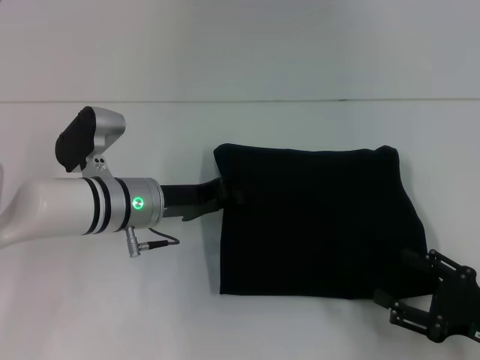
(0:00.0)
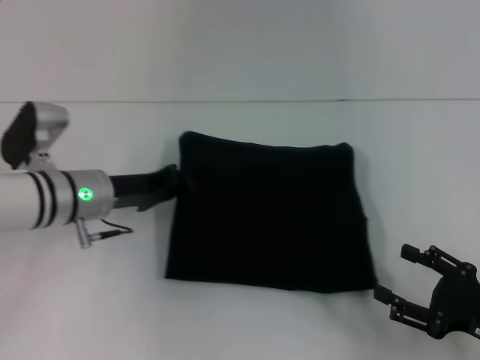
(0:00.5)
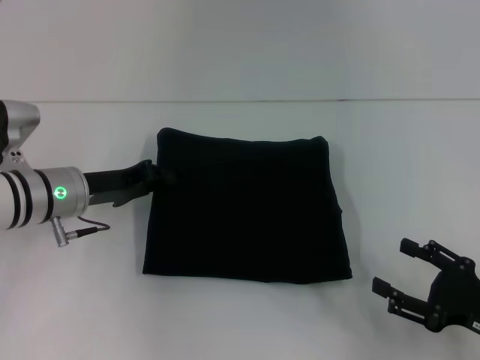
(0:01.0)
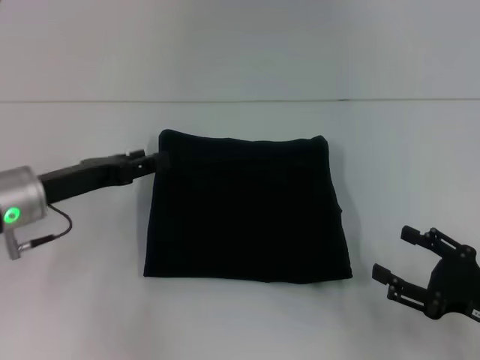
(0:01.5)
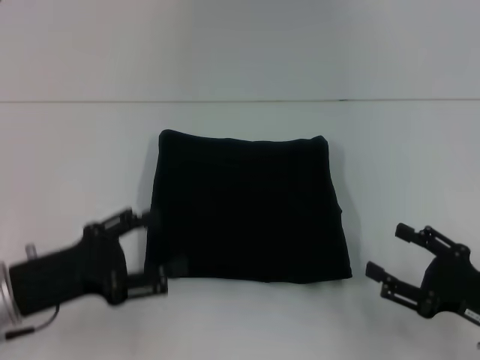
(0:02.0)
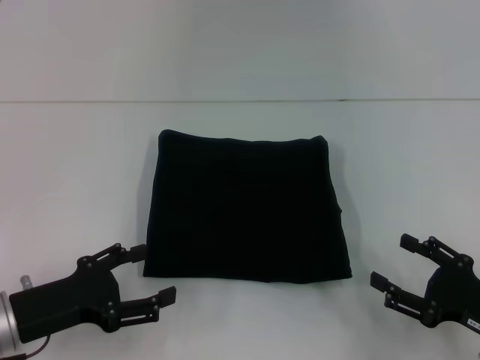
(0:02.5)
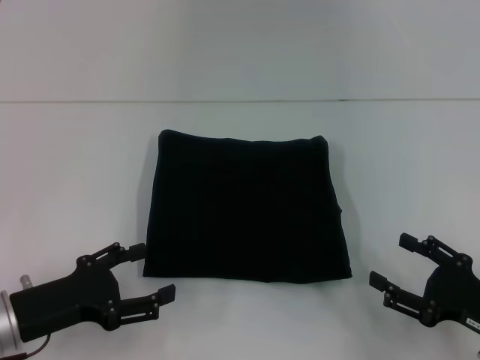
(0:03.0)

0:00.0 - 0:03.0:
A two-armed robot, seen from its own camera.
0:00.0 - 0:01.5: The left gripper shifts about 10 cm to the left, and opens.
0:01.5 - 0:03.0: The left gripper shifts approximately 10 cm backward, and opens up.

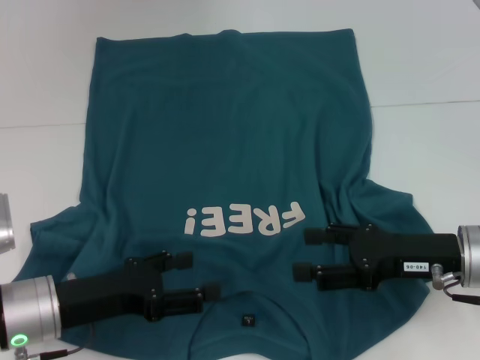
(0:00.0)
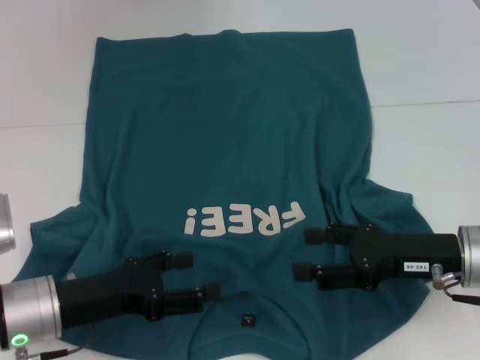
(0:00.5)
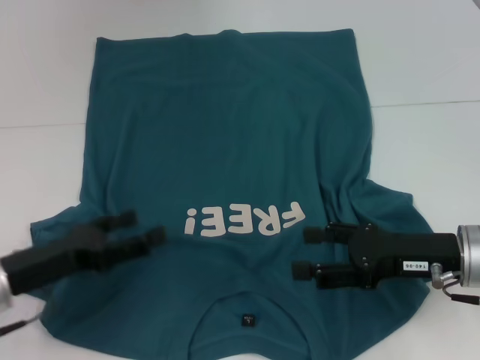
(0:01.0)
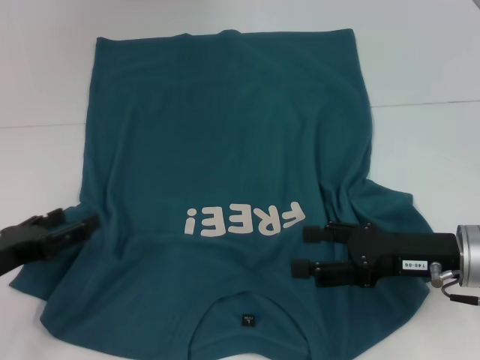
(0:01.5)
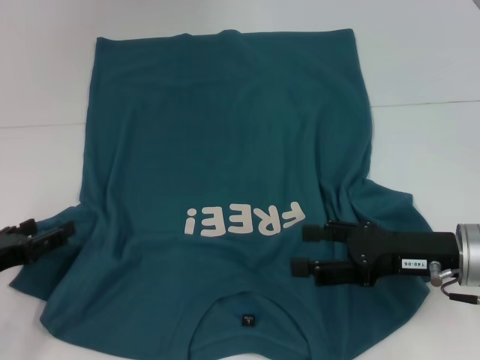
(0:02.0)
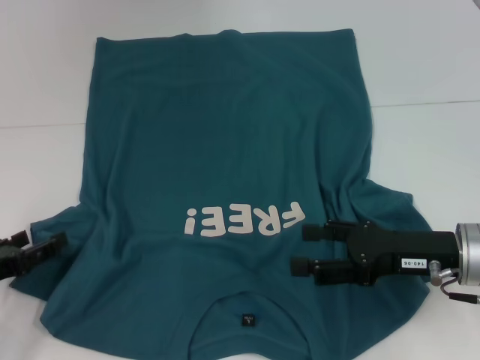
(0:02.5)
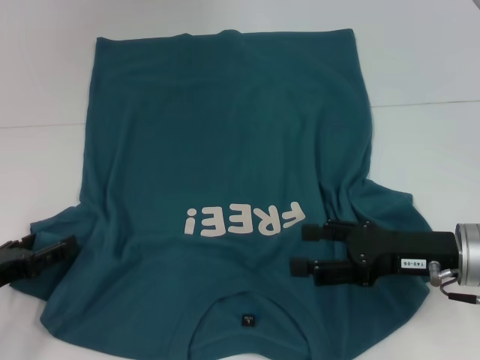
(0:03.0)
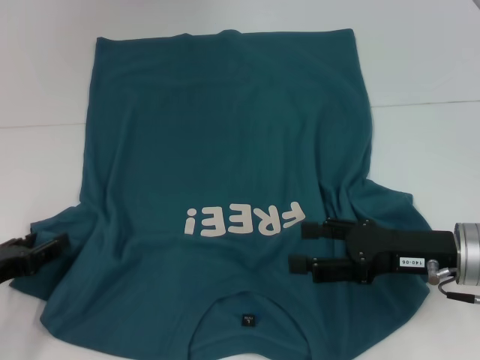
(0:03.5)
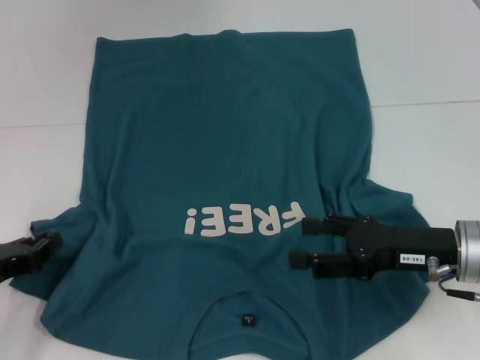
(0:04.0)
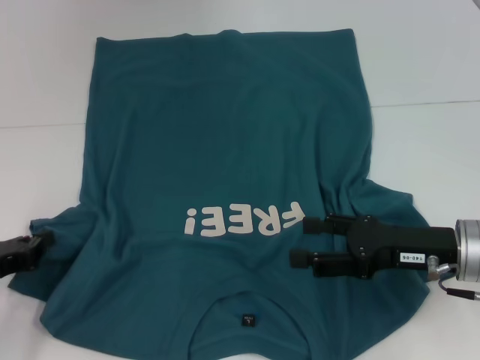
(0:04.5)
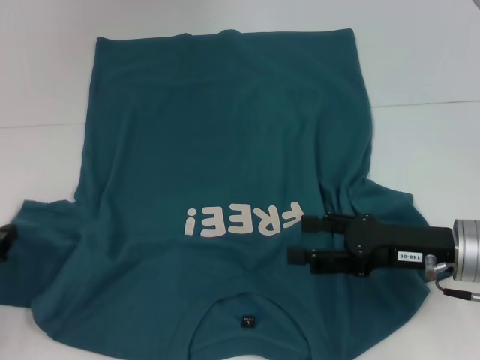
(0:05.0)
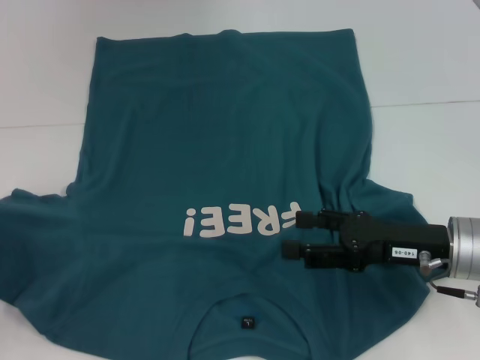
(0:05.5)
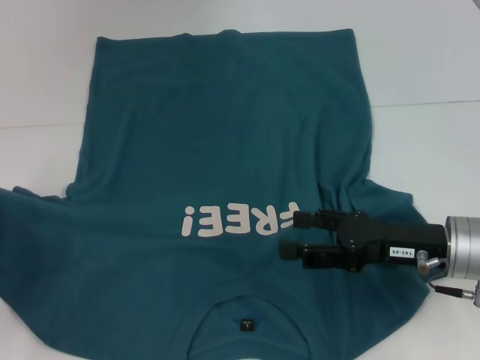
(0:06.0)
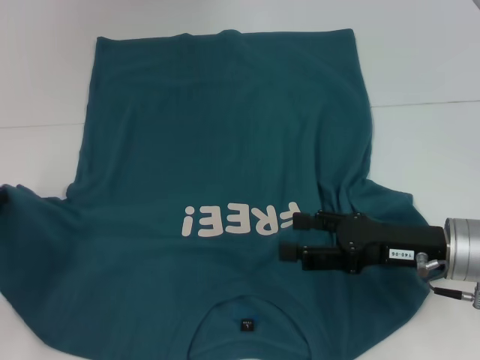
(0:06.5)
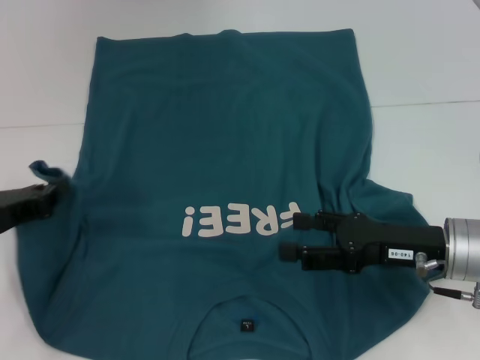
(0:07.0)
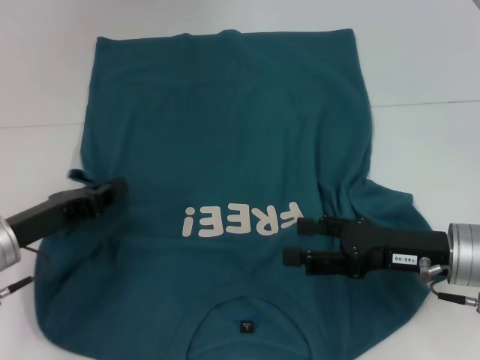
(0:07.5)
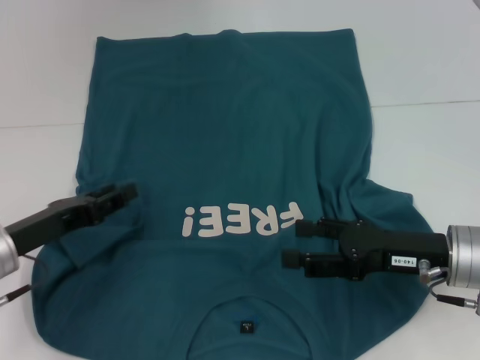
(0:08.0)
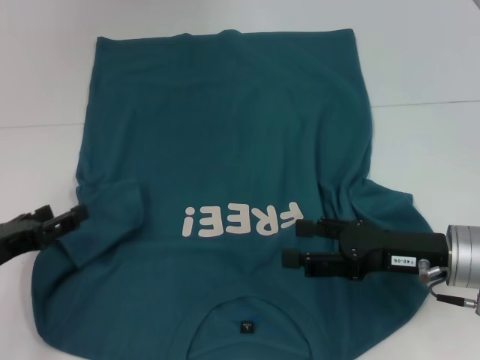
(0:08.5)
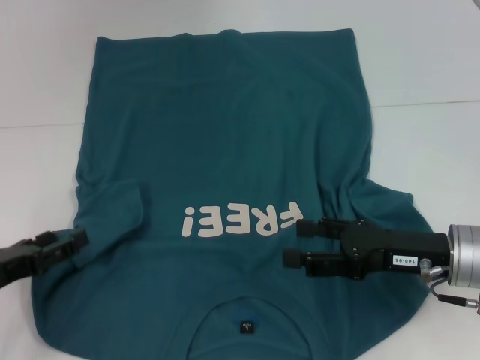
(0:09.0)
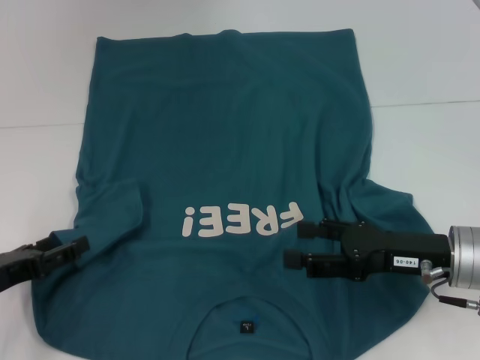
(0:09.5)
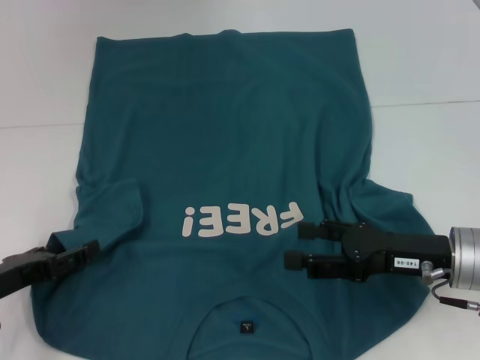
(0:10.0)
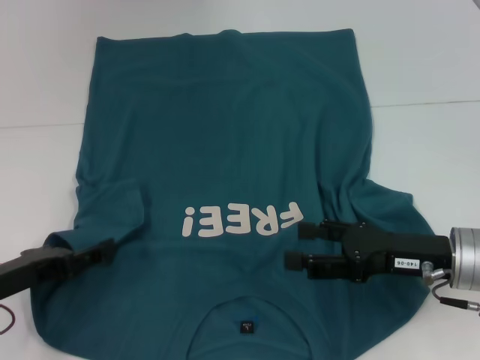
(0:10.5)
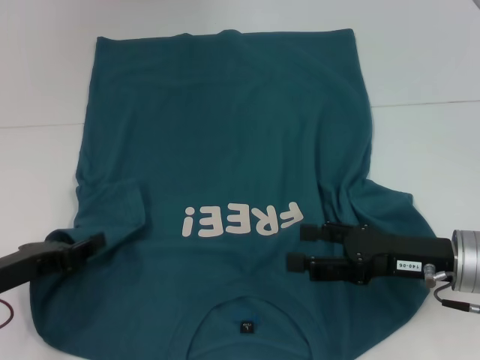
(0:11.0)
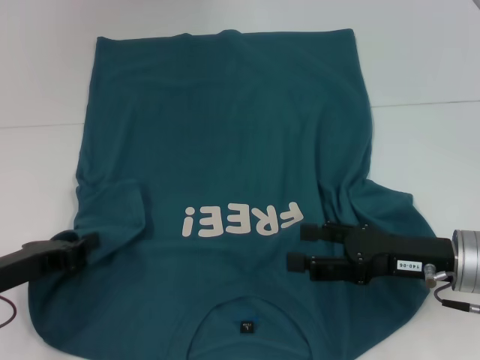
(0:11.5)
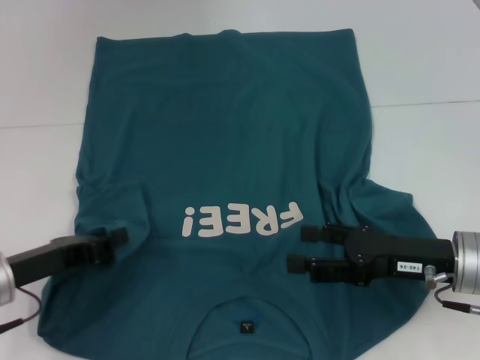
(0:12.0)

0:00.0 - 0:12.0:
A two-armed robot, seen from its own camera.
0:00.0 - 0:02.0: The left gripper goes about 10 cm to the left.
0:02.0 - 0:04.0: The left gripper closes its fingers.
0:04.0 - 0:06.0: The left gripper shifts by some 5 cm.
0:06.0 - 0:08.0: The left gripper moves to the right, about 10 cm, and opens up.
0:08.0 - 0:10.0: The left gripper ends up about 5 cm from where it was, and opens up.
0:10.0 - 0:12.0: The left gripper closes.

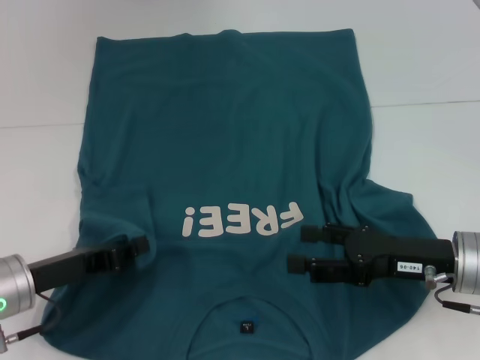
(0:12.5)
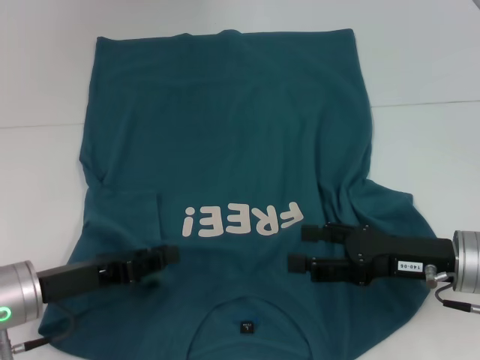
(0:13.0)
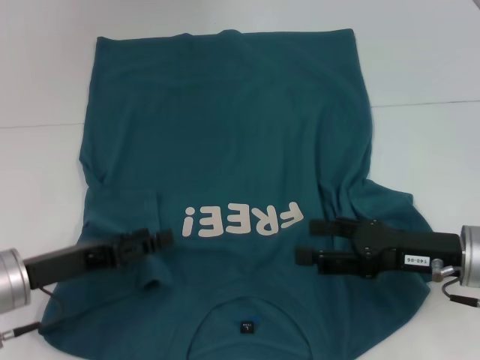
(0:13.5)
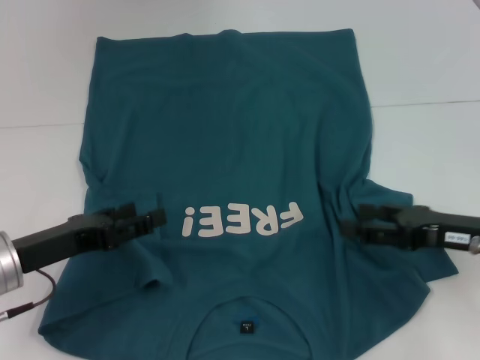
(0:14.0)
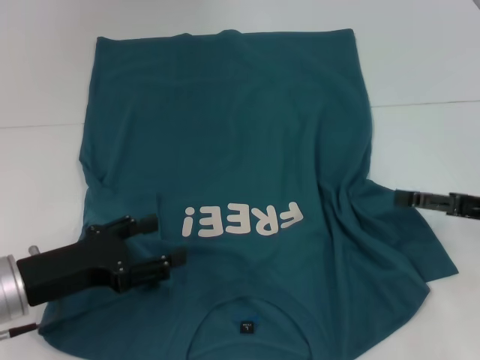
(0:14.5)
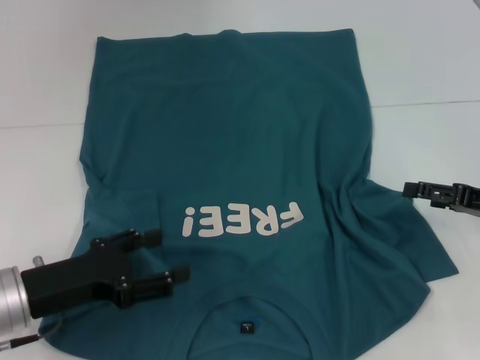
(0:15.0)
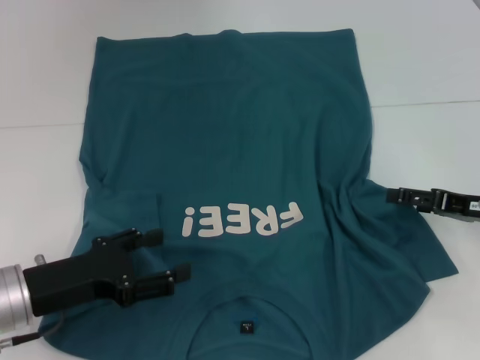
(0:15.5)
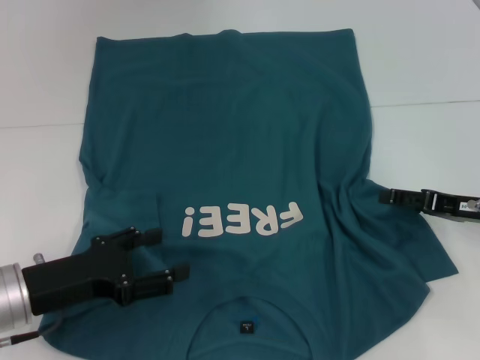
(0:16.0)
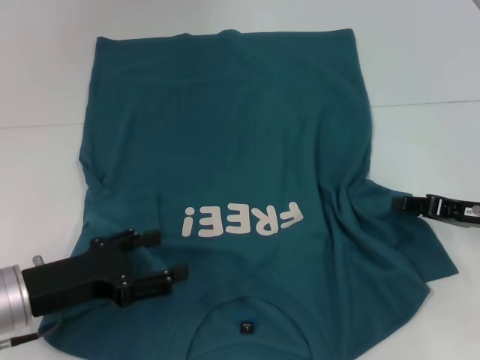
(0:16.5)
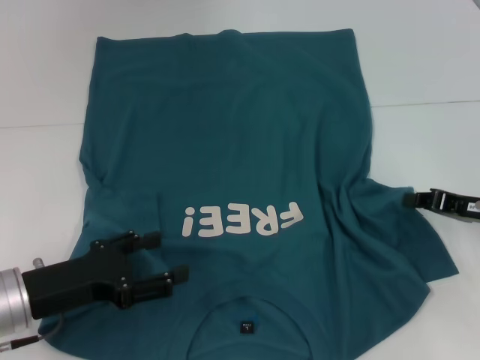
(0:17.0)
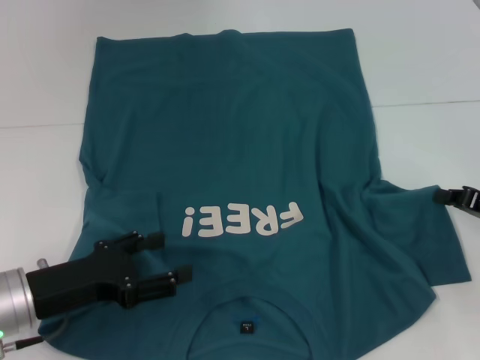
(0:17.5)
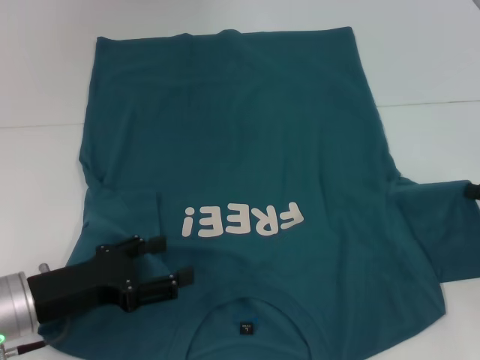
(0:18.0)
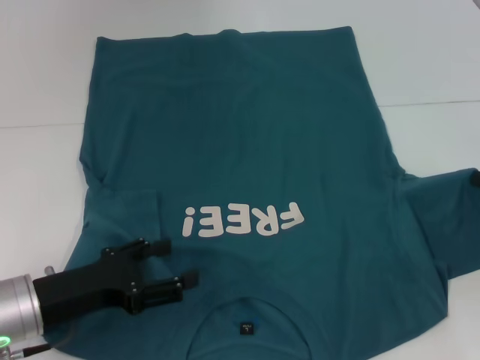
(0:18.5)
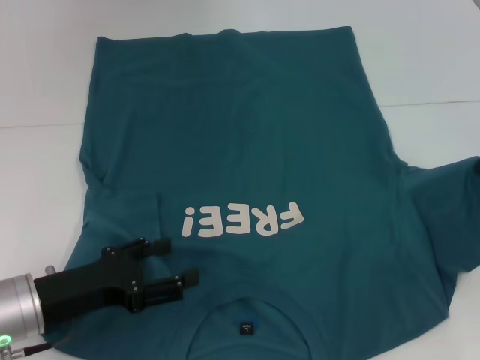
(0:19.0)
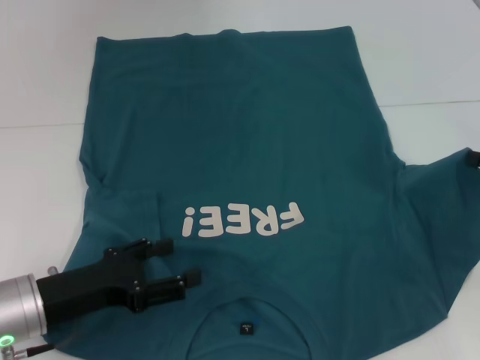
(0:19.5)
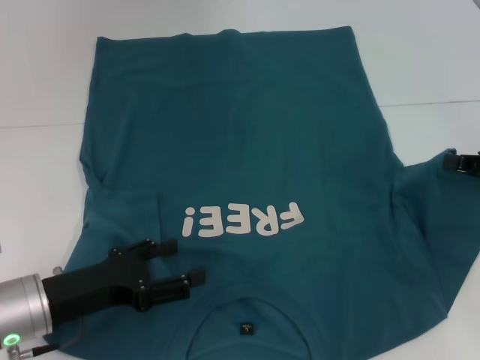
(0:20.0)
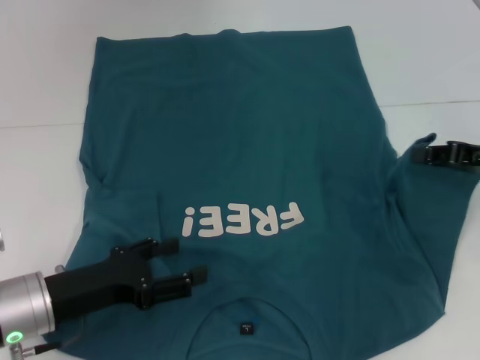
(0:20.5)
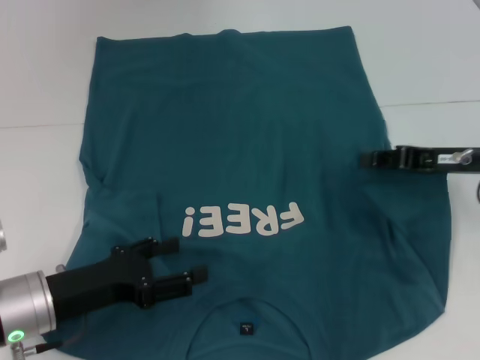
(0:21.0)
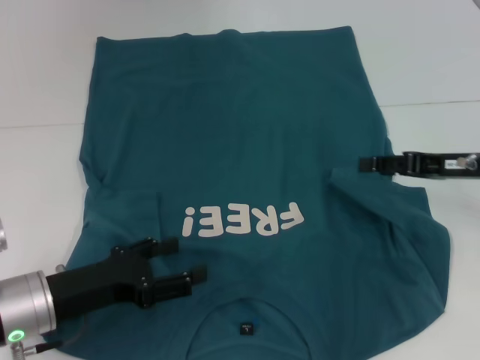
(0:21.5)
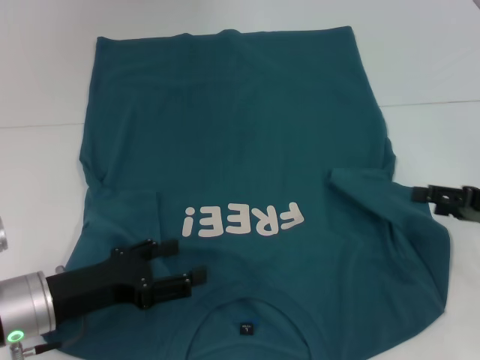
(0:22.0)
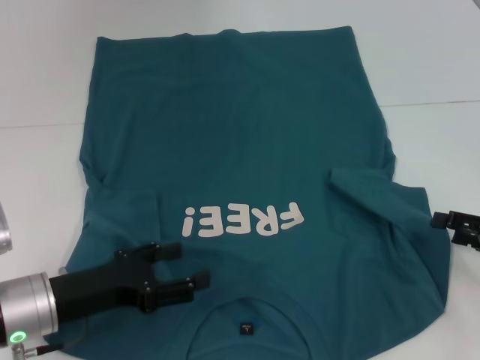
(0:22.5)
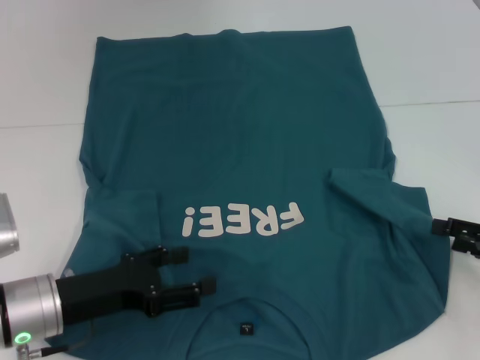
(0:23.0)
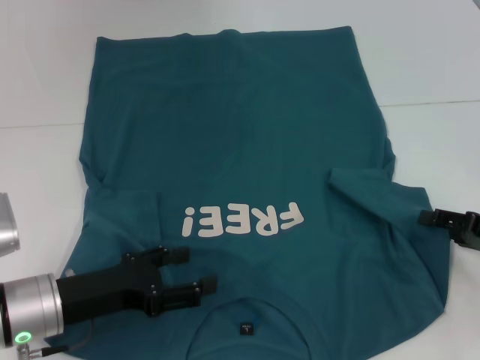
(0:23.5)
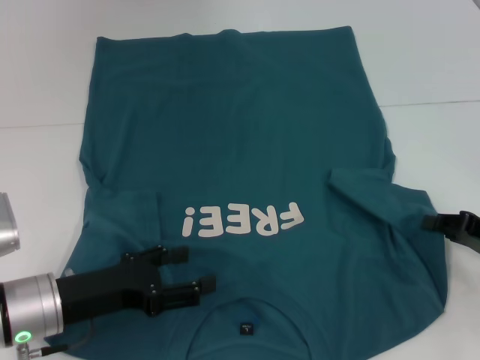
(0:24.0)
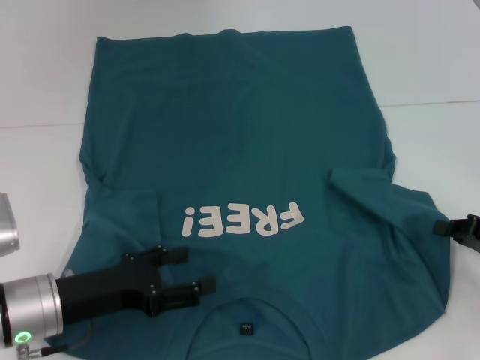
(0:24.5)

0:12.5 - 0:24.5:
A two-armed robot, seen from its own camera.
0:12.5 - 0:14.5: The left gripper opens up. Meanwhile the right gripper heads to the right, covering about 10 cm.
0:14.5 - 0:16.5: The right gripper closes up.
0:16.5 - 0:18.5: The right gripper goes approximately 5 cm to the right, and closes up.
0:18.5 - 0:20.5: The right gripper ends up some 5 cm from where it was.
0:20.5 - 0:22.5: The right gripper heads backward and downward, covering roughly 10 cm, and opens.
0:22.5 - 0:24.5: The right gripper closes its fingers.
